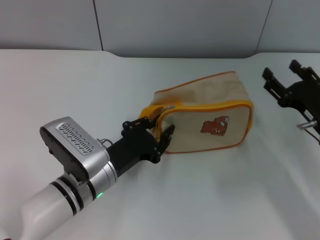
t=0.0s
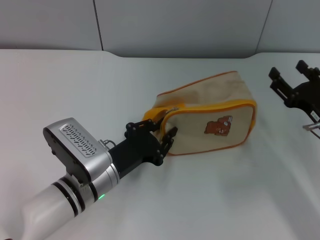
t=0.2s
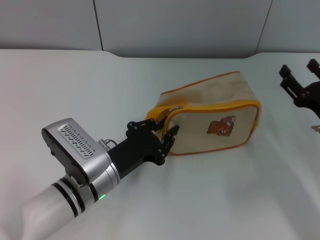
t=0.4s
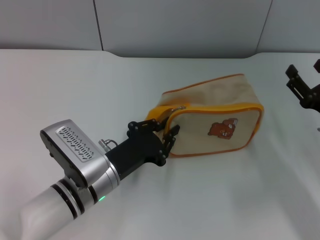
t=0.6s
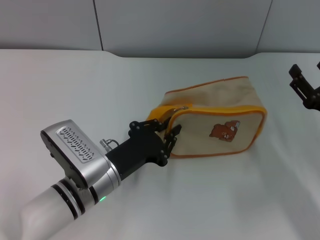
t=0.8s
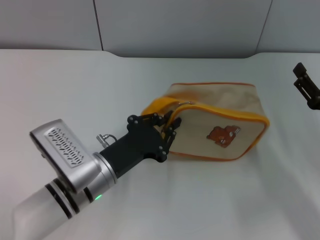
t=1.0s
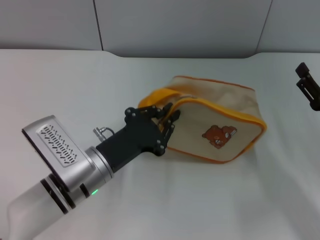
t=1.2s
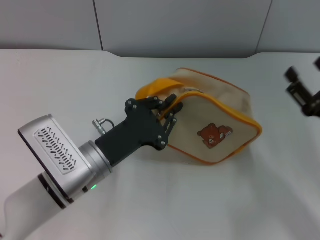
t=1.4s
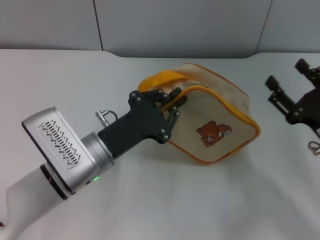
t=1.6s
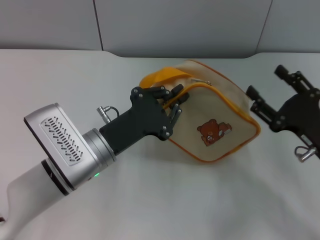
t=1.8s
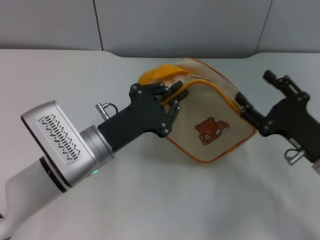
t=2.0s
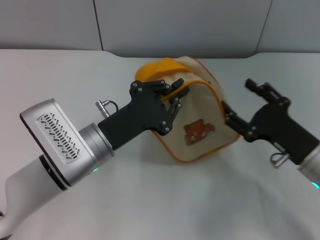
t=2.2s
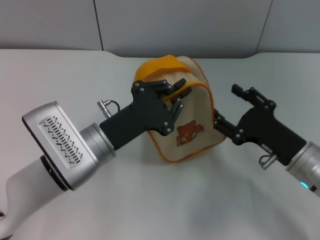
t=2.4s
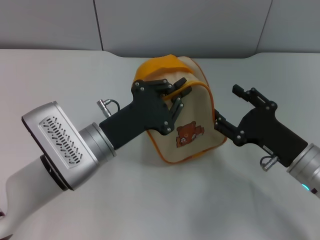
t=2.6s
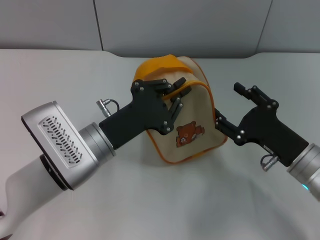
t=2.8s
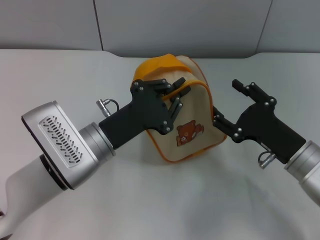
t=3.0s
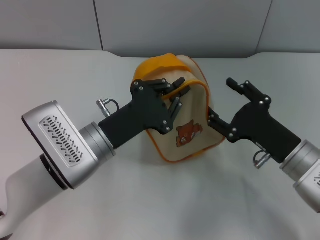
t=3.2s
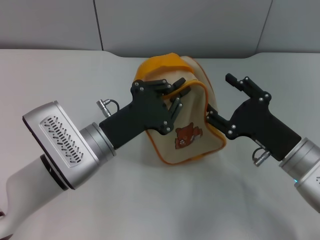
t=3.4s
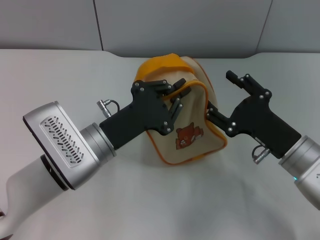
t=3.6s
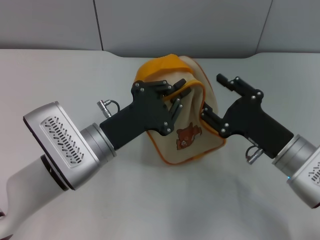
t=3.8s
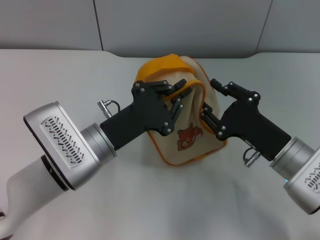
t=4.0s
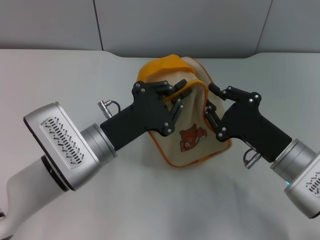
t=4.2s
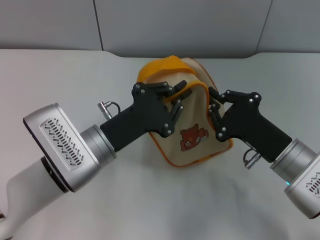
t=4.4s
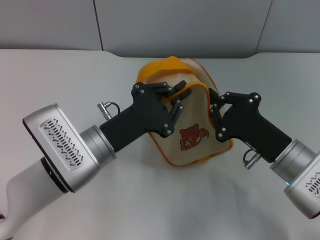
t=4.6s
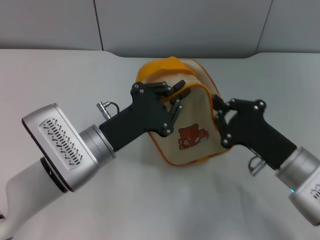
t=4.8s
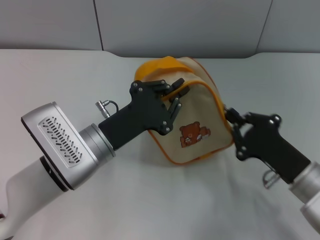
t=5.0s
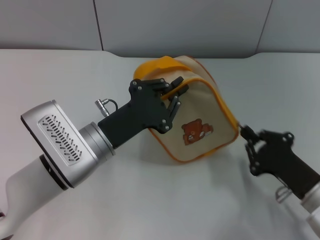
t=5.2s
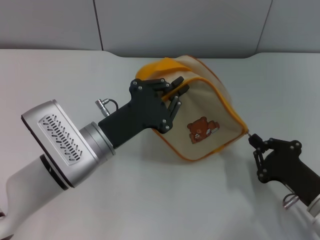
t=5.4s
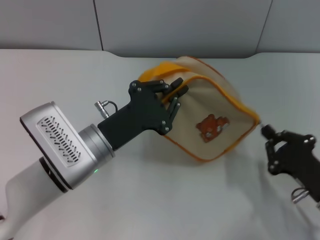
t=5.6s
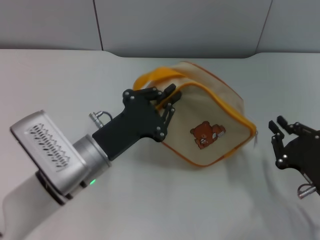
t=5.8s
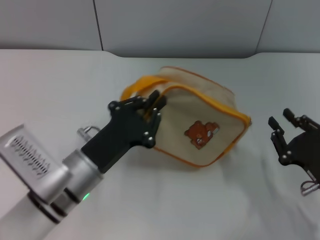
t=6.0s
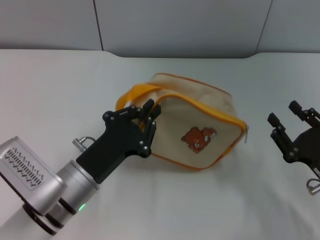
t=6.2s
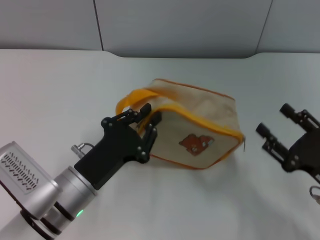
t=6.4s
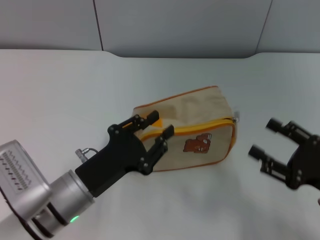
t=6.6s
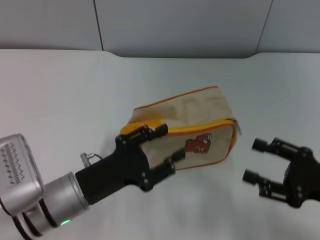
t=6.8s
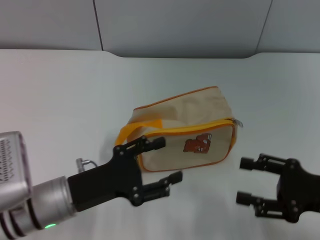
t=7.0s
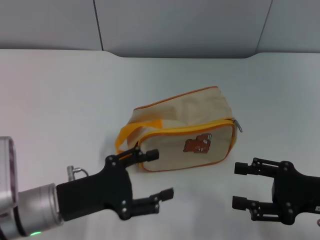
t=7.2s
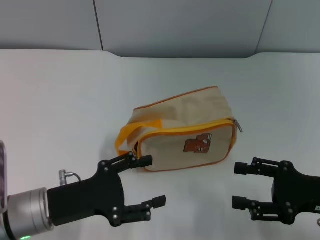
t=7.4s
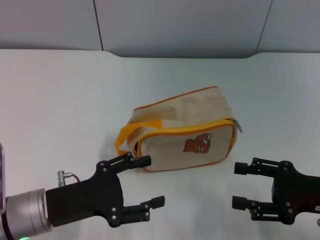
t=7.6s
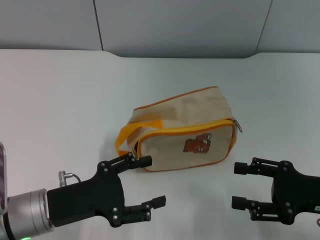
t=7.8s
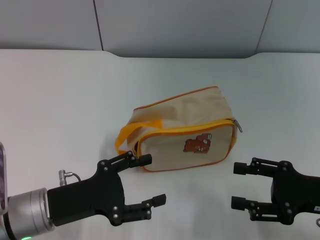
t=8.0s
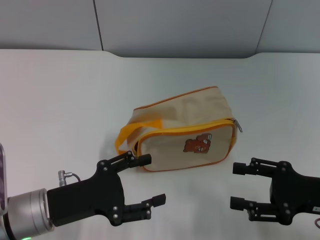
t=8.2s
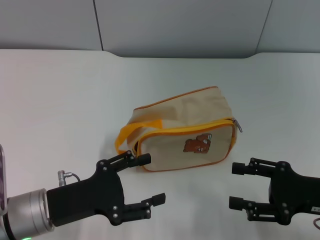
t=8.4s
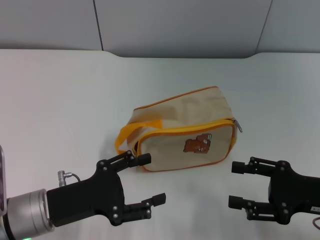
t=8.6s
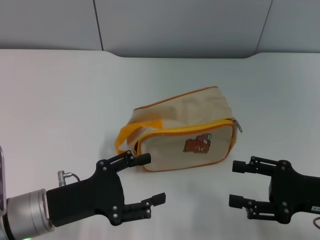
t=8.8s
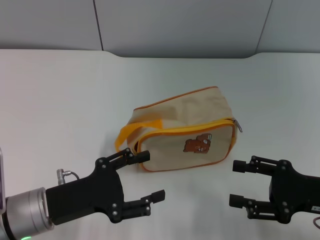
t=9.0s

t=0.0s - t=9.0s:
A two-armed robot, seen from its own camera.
Step, t=0.0s - t=1.0s: Pick up the bag with left gripper.
Step, t=1.2s - t=5.6s: Unzip the zipper of bag with right gripper.
Step, t=6.0s - t=6.6s: Place the bag on the table with left gripper.
t=0.0s - t=1.6s: The left gripper closes its fingers.
t=1.6s - t=3.0s: The right gripper heads to the left, covering about 5 cm.
t=3.0s - t=4.4s: The right gripper closes its fingers.
t=4.4s - t=6.0s: The right gripper travels to the right and backward by some 10 cm.
t=6.0s - t=7.6s: The right gripper heads upward, covering about 5 cm, and opens, while the left gripper goes roughly 5 cm to the left, and opens.
t=7.6s - t=9.0s: Both grippers stay about where they are.

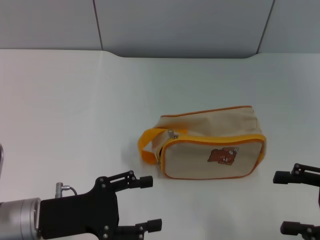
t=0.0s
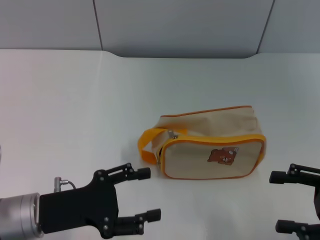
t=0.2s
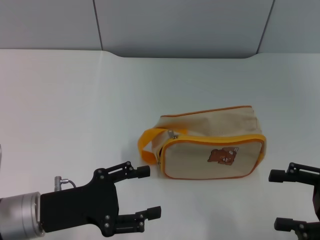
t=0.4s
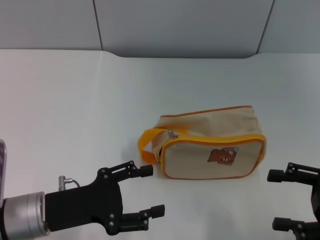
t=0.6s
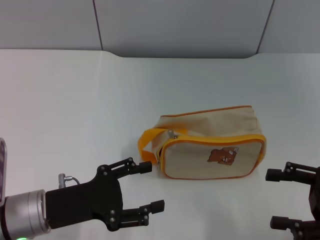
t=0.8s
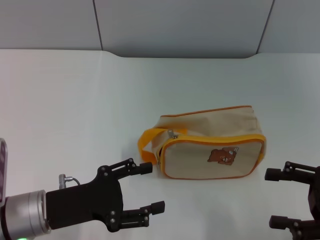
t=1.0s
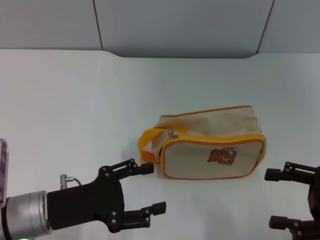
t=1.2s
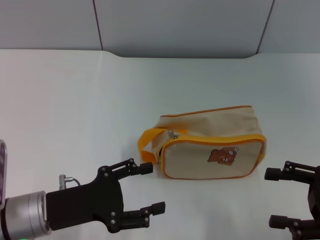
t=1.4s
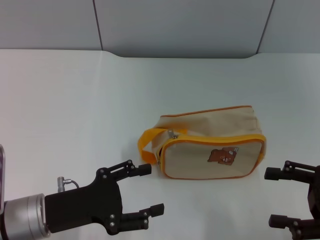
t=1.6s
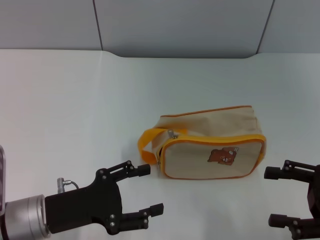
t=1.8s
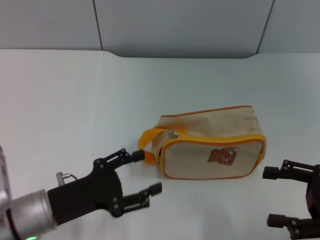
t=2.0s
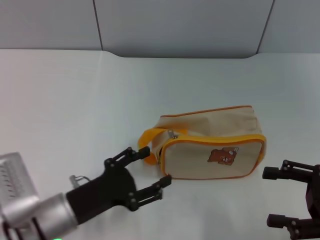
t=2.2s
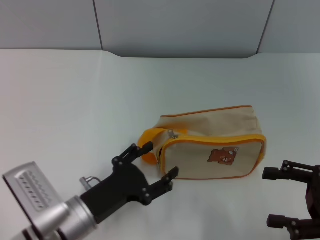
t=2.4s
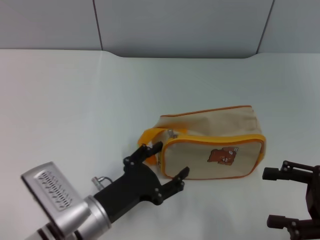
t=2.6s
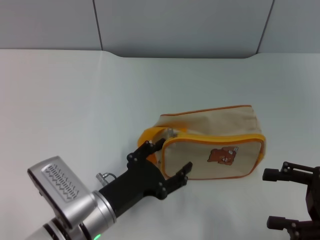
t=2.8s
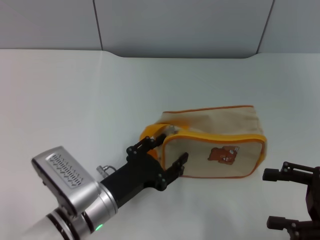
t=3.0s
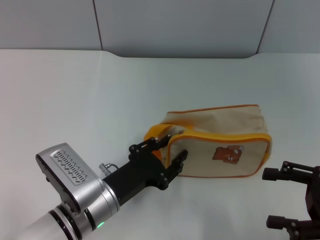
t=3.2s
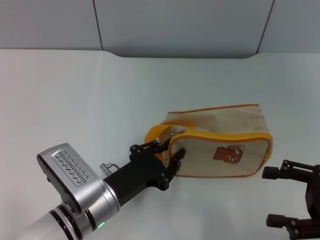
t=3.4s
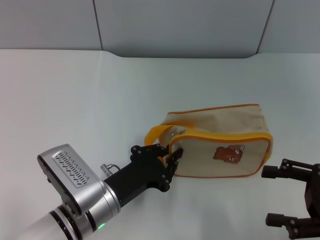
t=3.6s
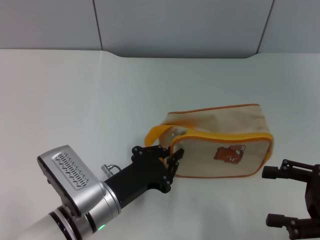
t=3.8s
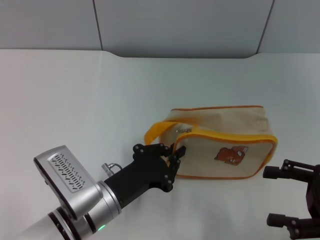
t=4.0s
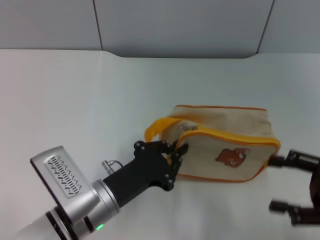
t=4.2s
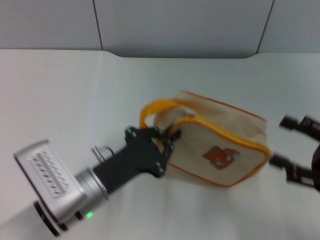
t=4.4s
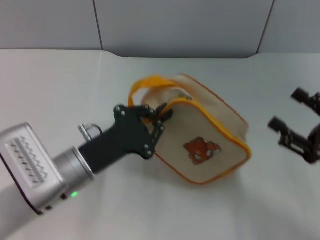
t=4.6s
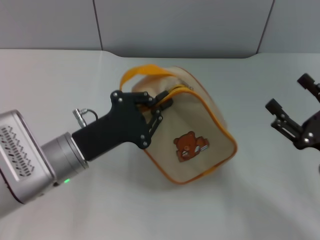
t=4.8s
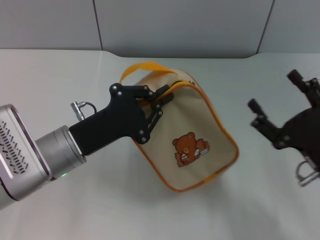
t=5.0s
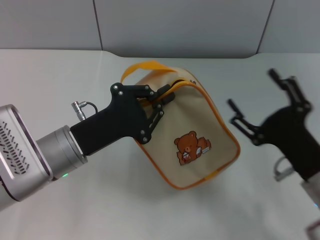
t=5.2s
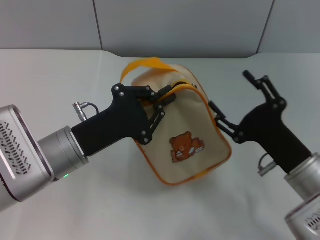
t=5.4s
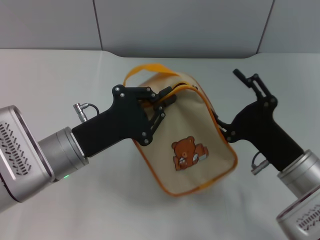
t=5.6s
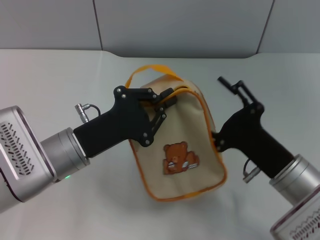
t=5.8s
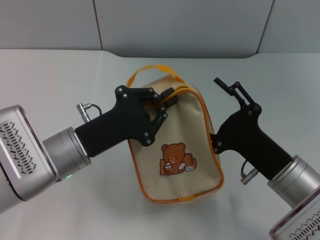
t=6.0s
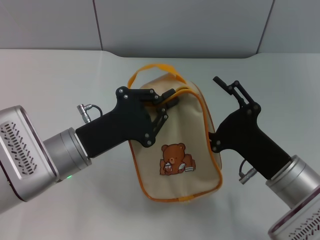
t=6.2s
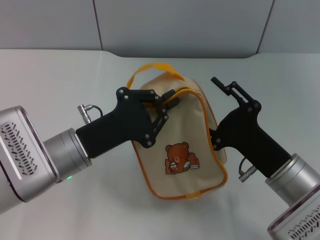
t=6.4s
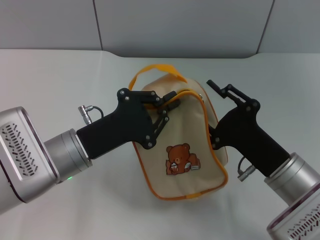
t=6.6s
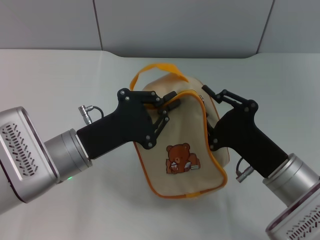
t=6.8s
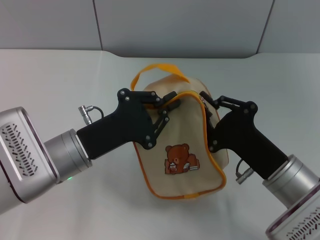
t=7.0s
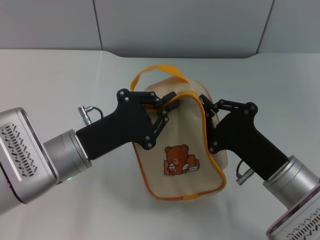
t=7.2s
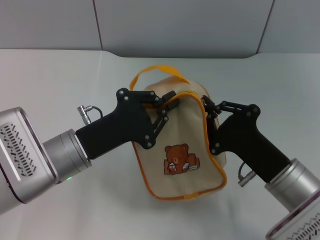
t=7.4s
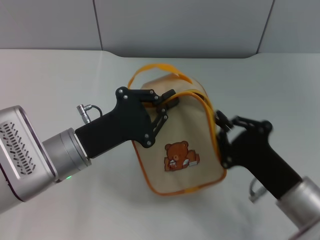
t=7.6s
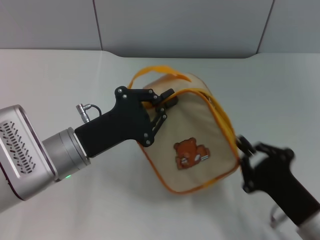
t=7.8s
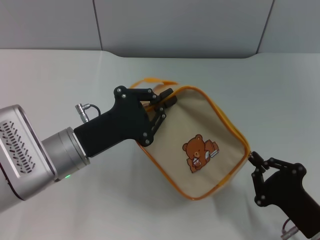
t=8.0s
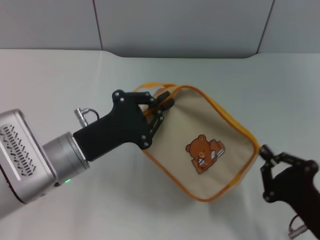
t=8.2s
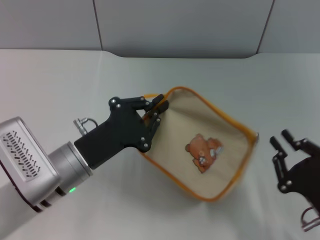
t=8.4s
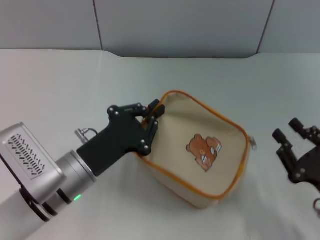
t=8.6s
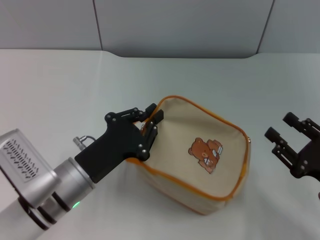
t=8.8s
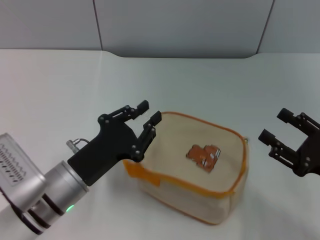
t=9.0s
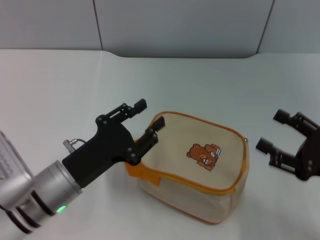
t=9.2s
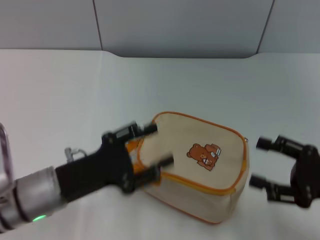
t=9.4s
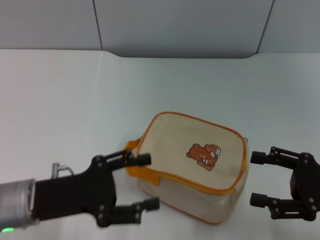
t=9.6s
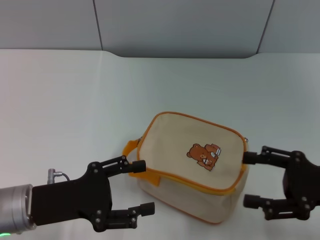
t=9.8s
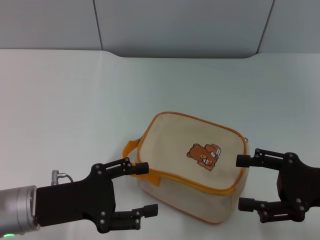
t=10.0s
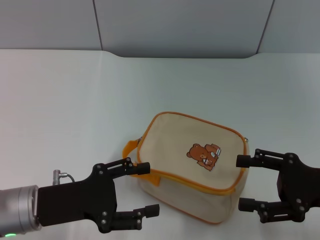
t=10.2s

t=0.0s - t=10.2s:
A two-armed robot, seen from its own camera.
Step, t=0.0s - t=4.6s: Pick up the bag with left gripper.
Step, t=5.0s - t=8.4s: Unzip the zipper of bag with right gripper.
Step, t=8.6s - t=9.0s: Place the bag on the table with left gripper.
t=0.0s - t=1.4s: There are only small adjustments of the grippers.
t=1.4s - t=3.0s: The left gripper moves to the right, some 10 cm.
t=3.0s - t=4.4s: The left gripper closes.
t=4.4s - t=5.8s: The right gripper travels to the left by approximately 15 cm. The left gripper changes place by some 5 cm.
t=5.8s - t=7.2s: The right gripper closes up.
t=7.2s - t=8.8s: The right gripper is displaced to the right by some 10 cm, and opens.
t=8.8s - t=10.2s: The left gripper heads to the left, covering approximately 5 cm, and opens its fingers; the right gripper travels upward by approximately 5 cm, and opens.

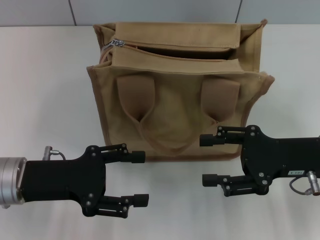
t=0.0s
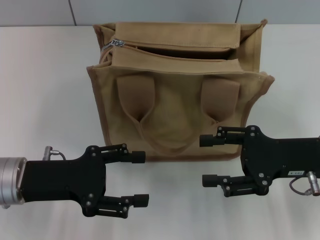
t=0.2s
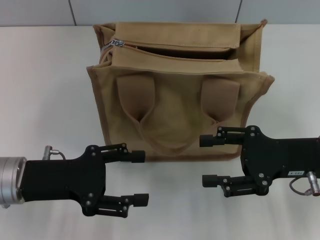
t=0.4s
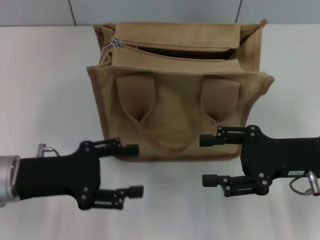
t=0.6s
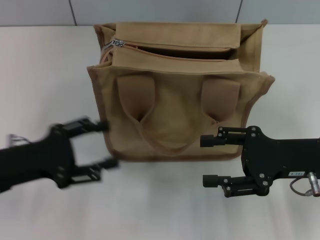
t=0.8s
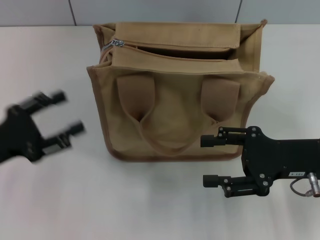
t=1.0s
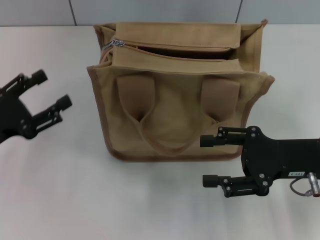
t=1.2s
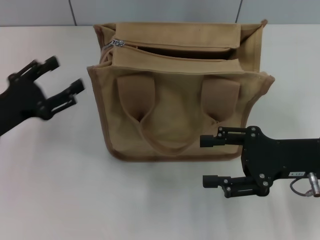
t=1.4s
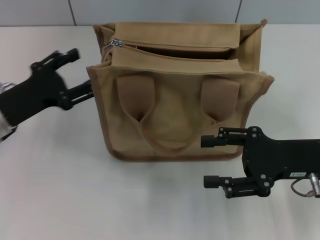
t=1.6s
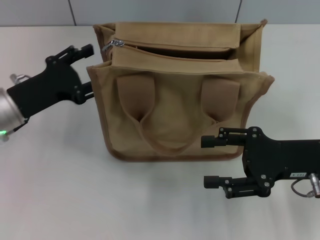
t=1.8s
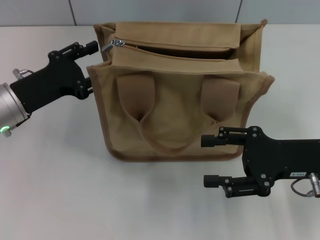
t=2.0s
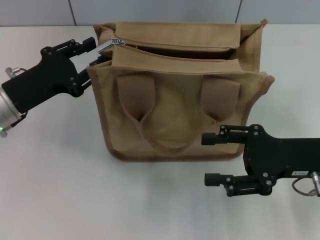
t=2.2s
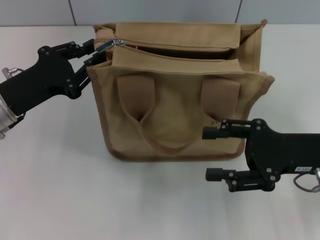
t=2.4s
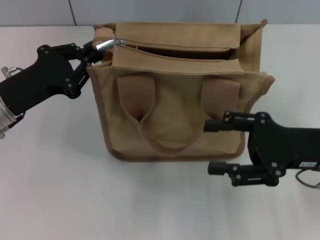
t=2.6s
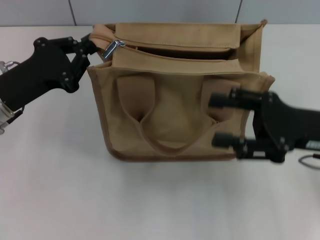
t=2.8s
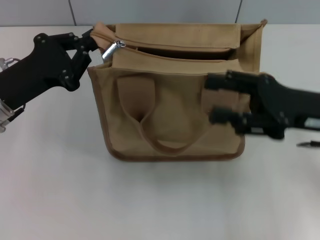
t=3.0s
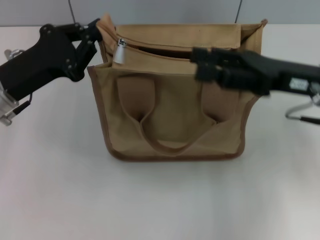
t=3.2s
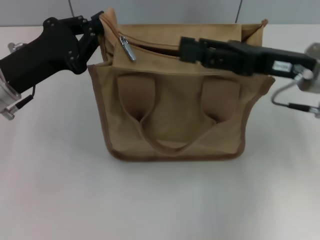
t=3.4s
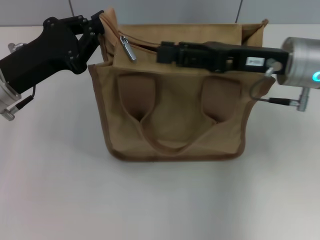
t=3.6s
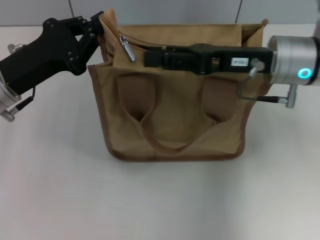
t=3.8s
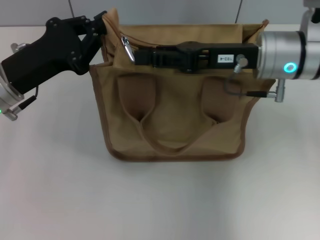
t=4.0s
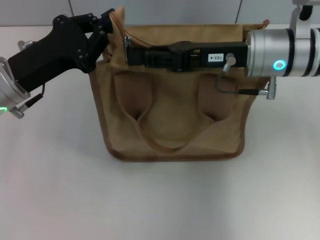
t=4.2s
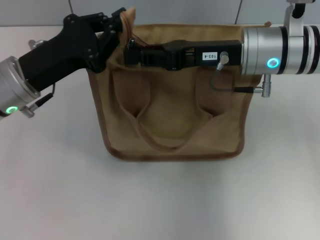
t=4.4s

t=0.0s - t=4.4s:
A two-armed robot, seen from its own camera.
t=0.0s - t=1.4s: The left gripper shifts roughly 5 cm to the left.
t=1.4s - t=3.0s: The left gripper shifts by some 5 cm, and closes.
t=3.0s - t=4.4s: The right gripper travels to the left and forward by roughly 15 cm, and closes its fingers.
